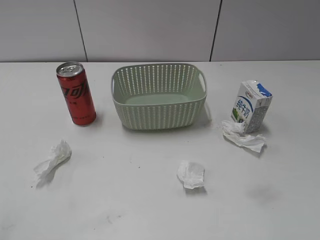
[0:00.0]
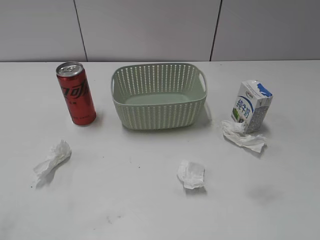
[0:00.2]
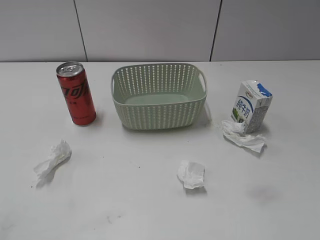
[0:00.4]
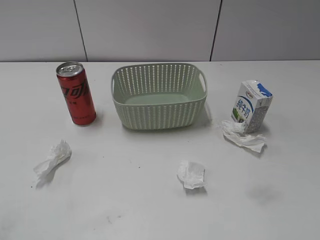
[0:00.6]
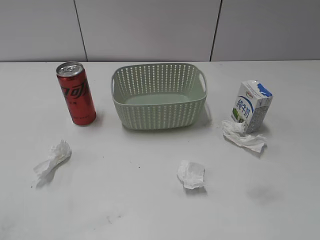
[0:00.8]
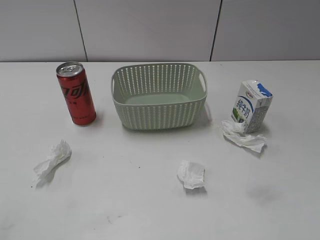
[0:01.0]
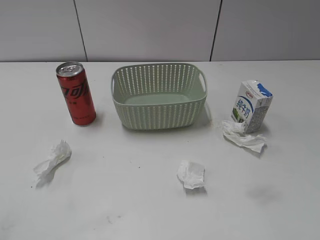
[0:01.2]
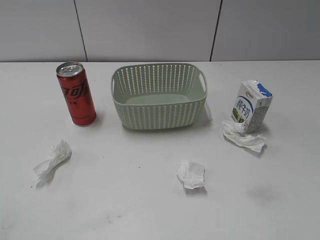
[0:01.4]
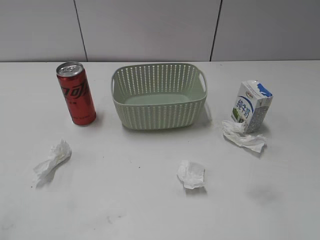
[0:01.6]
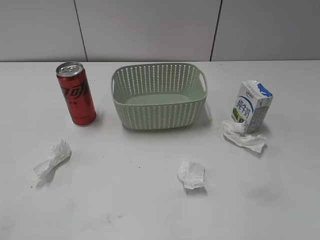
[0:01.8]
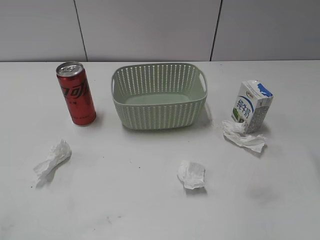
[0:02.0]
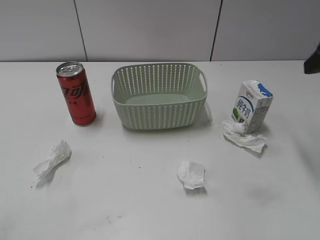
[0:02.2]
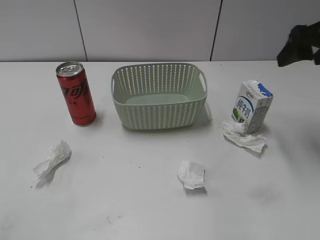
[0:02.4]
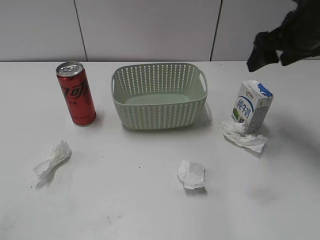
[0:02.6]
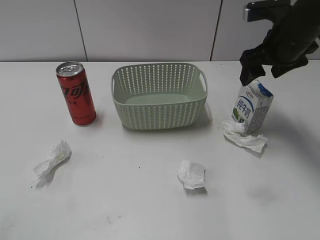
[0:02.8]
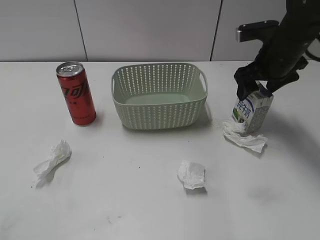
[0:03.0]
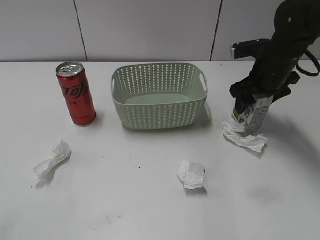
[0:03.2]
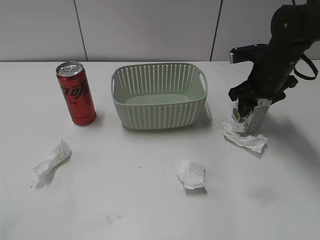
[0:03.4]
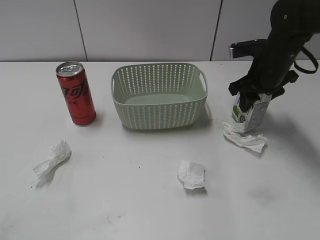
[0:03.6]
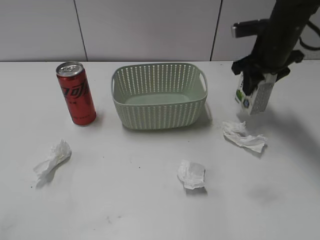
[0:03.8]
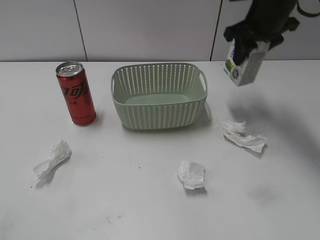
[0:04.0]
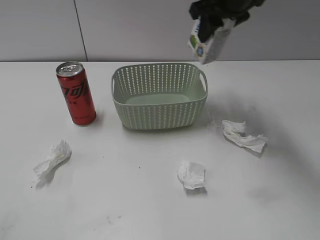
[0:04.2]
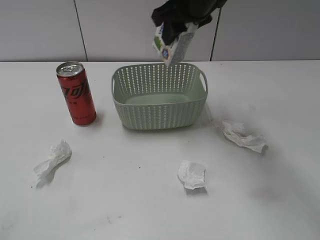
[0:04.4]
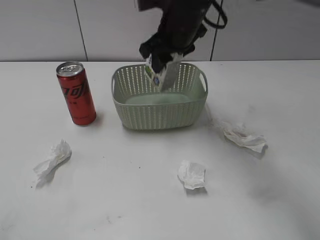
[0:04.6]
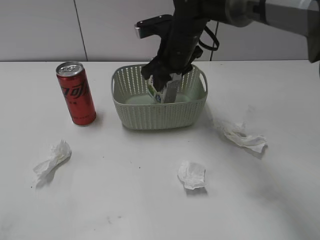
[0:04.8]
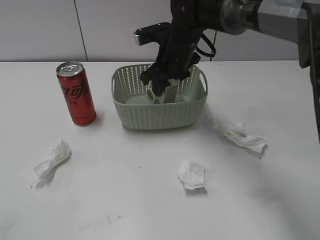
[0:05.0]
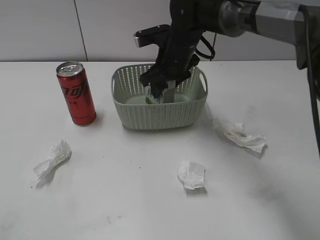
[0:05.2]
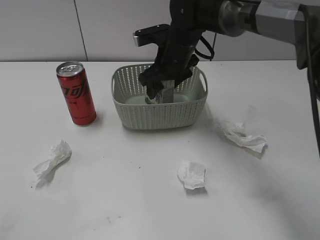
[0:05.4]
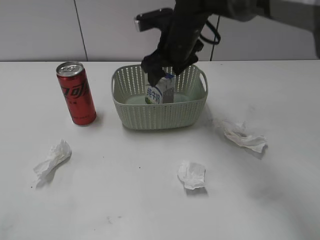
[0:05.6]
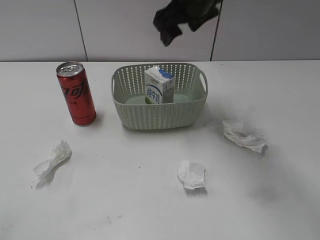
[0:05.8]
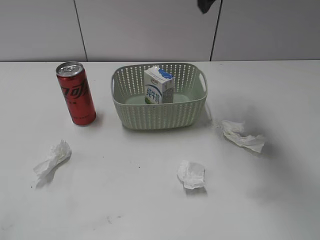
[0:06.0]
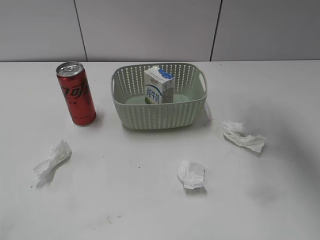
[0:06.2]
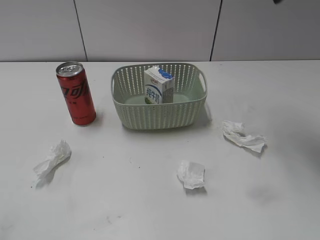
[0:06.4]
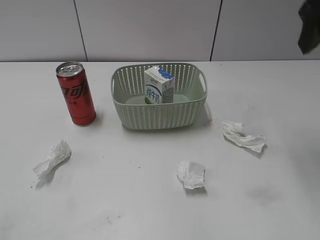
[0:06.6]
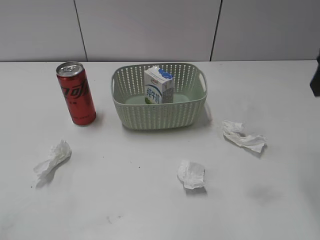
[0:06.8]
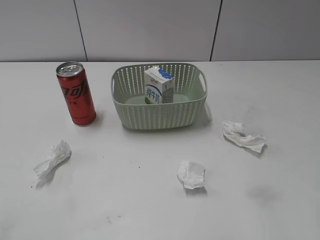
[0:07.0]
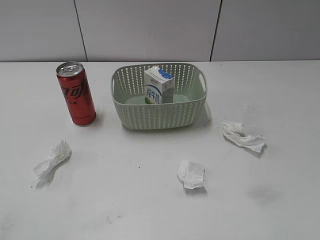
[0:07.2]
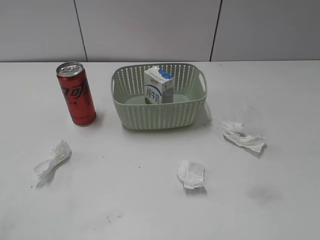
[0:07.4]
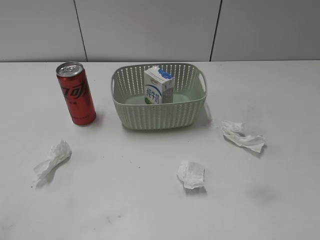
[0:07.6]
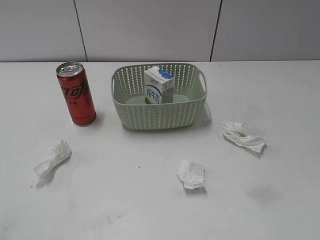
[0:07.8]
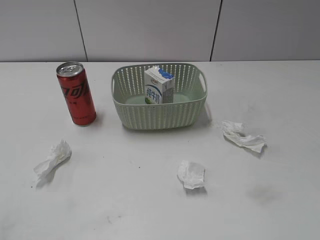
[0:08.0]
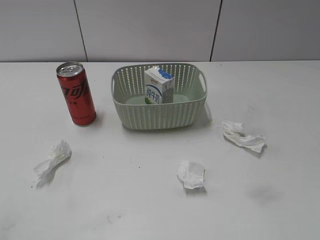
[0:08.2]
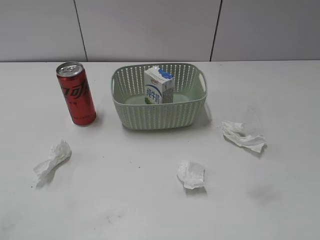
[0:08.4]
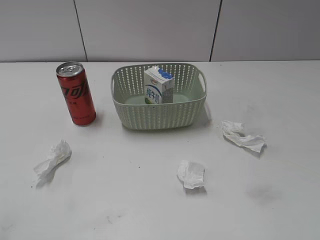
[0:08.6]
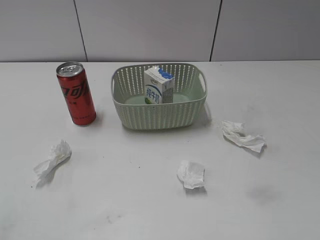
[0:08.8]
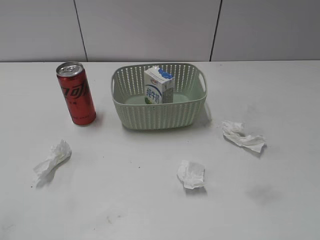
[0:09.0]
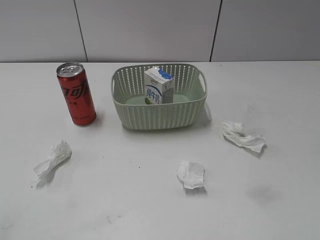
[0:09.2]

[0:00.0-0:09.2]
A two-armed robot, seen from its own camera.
Step, 0:02.2 to 0:03.4: Grasp the milk with right gripper.
Step, 0:03.6 to 0:05.8: Place the milk in the basket with right gripper.
0:01.6 to 0:03.0: The right gripper moves forward and downward, some 35 cm.
0:03.0 to 0:04.6: The right gripper travels to the left by about 15 cm, and closes.
0:04.6 to 0:06.2: The right gripper travels upward and to the right by some 20 cm, and opens up.
0:06.2 to 0:07.6: The right gripper shifts roughly 40 cm backward and to the right.
